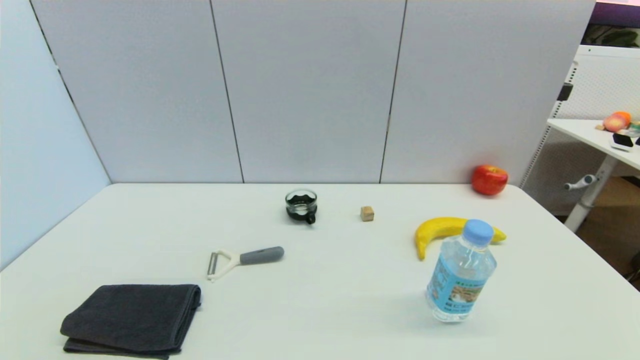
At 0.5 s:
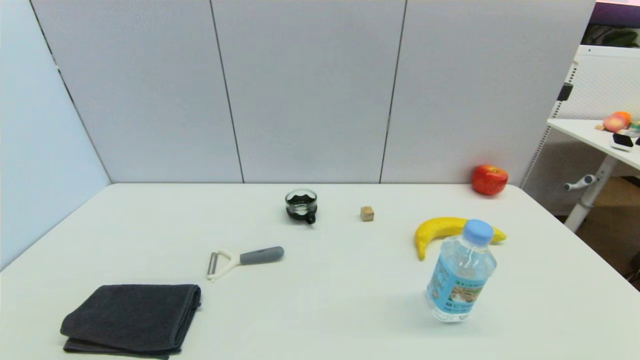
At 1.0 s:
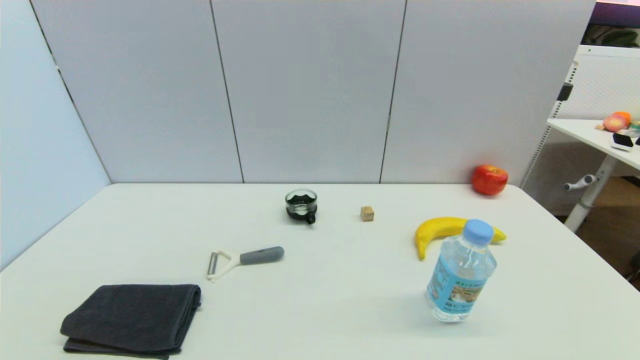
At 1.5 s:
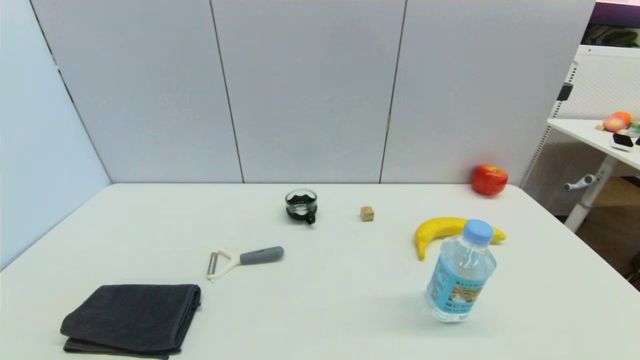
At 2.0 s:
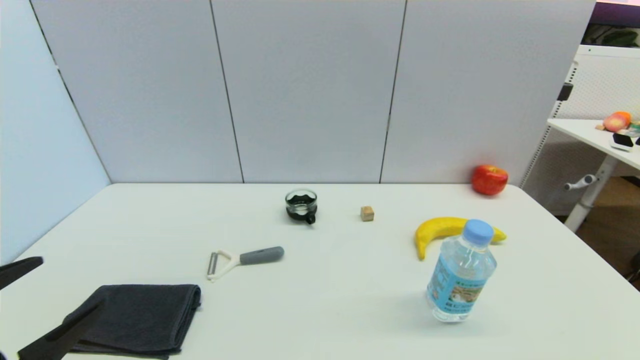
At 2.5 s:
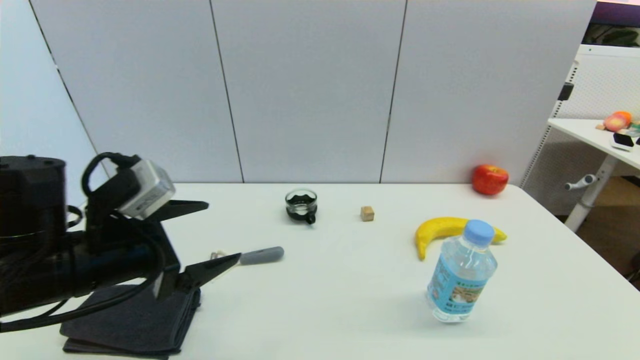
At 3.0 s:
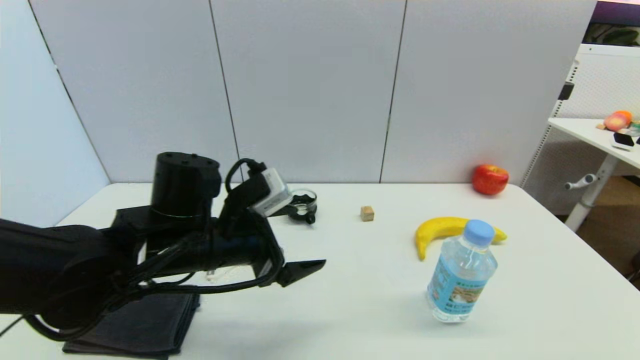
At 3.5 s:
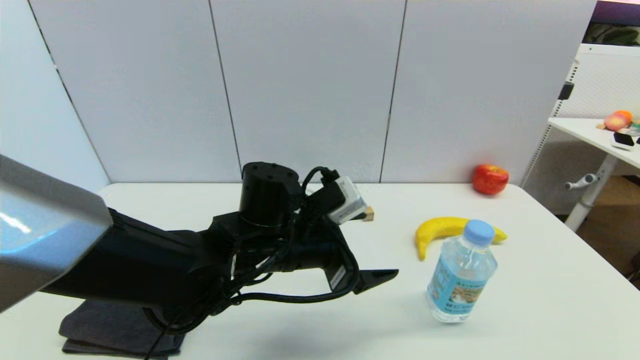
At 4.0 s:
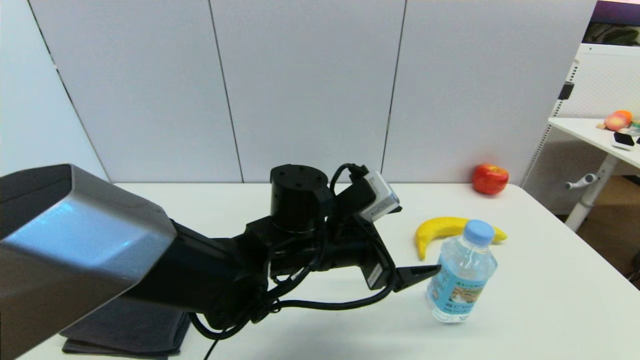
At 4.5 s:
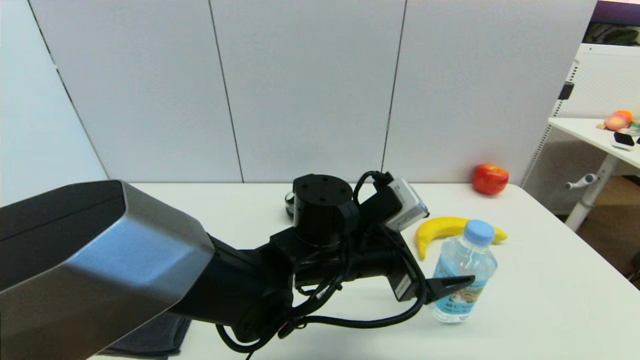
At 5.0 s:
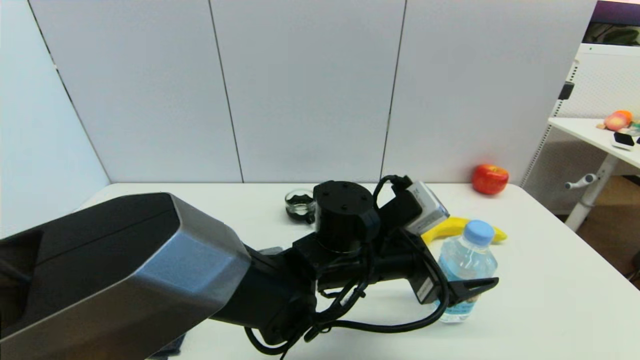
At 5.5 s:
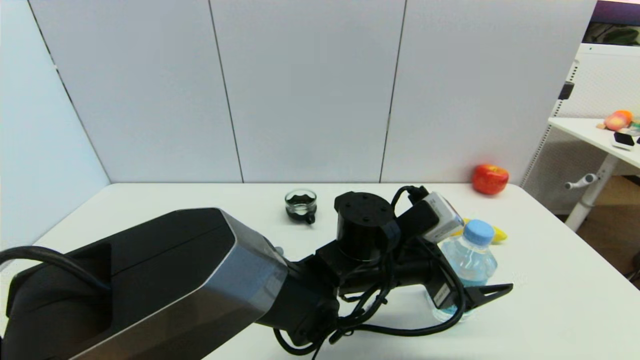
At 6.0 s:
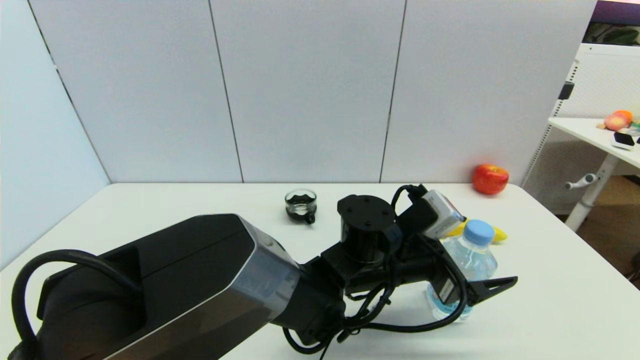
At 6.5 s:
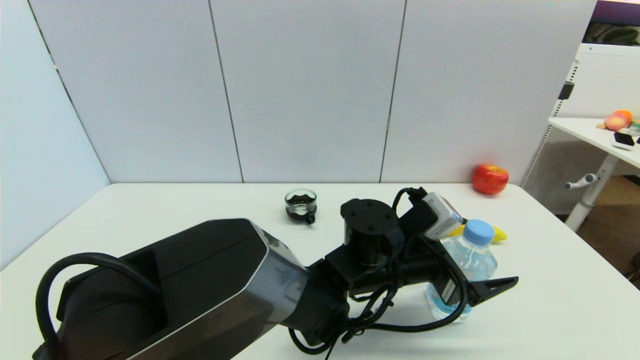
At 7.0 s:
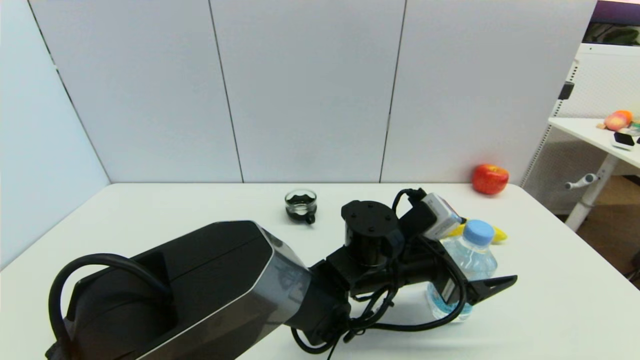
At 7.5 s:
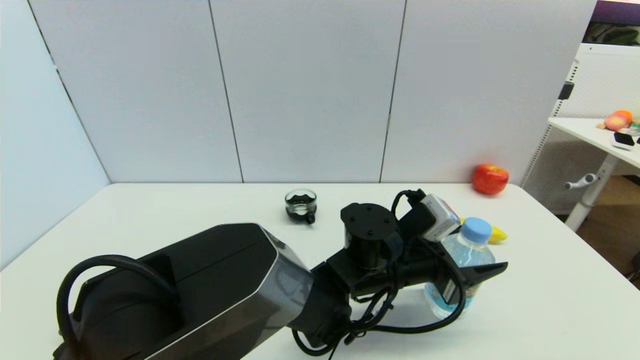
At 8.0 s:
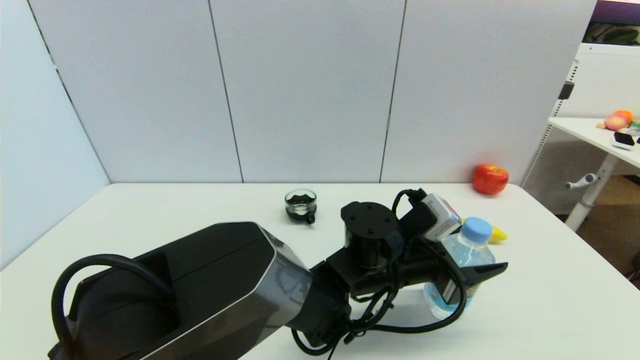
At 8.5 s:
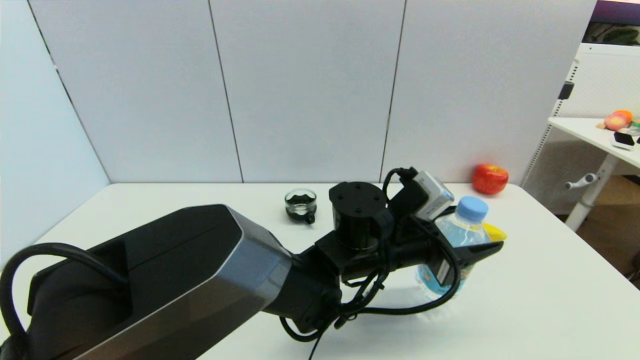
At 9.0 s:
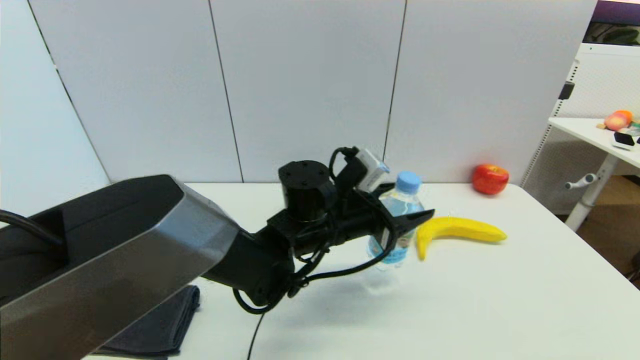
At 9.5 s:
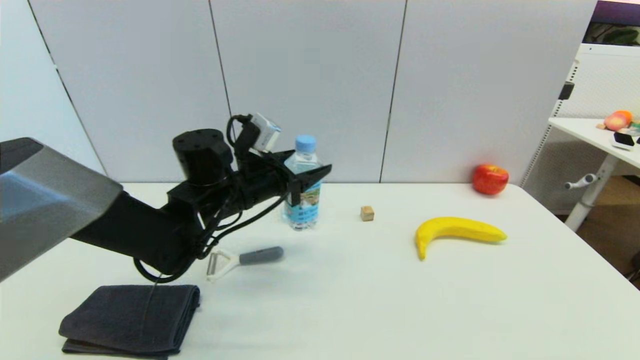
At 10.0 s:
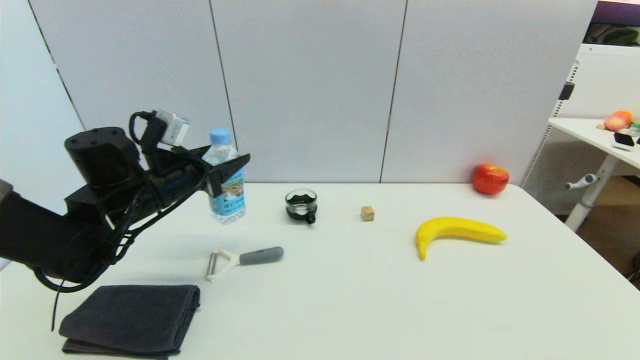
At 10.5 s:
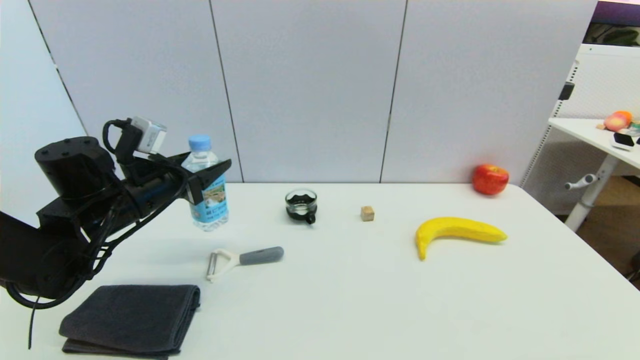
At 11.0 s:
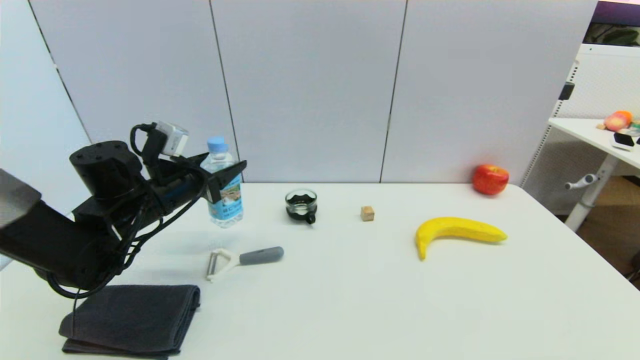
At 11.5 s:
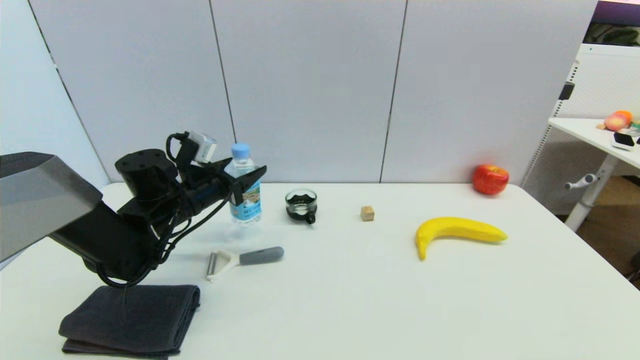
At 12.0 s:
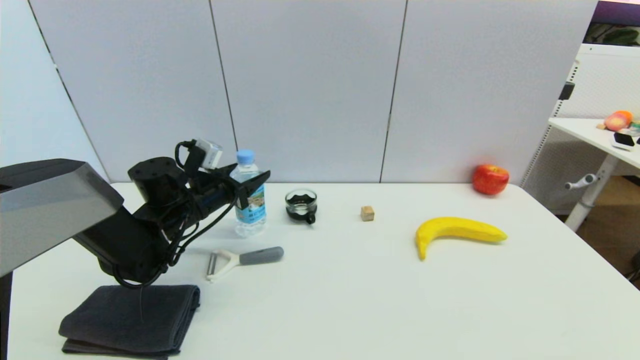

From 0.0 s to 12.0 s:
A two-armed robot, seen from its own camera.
Step, from 2.0 s to 7.5 s: Grasp the soda water with left gripper.
From 0.0 s to 2.0 s: The left gripper shifts some 15 cm upward and forward.
From 2.0 s to 4.0 s: The left gripper shifts approximately 35 cm to the right and forward.
From 4.0 s to 6.0 s: The left gripper heads to the right, covering about 10 cm.
From 6.0 s to 8.0 s: The left gripper closes up.
From 8.0 s to 10.0 s: The left gripper goes roughly 30 cm to the left.
From 10.0 s to 12.0 s: The left gripper heads downward and forward, covering about 10 cm.

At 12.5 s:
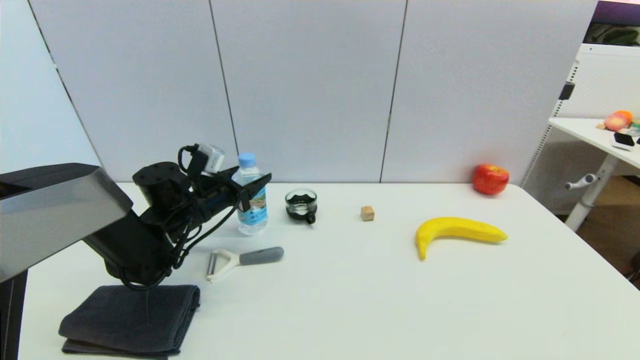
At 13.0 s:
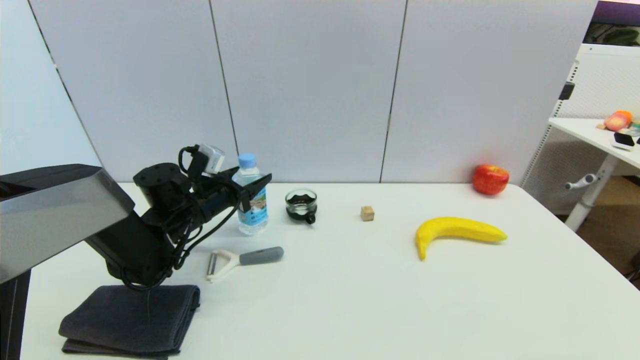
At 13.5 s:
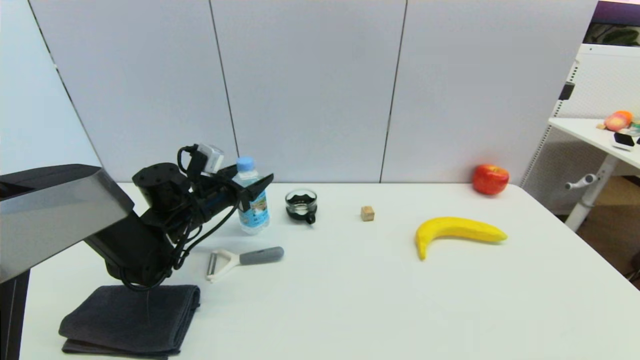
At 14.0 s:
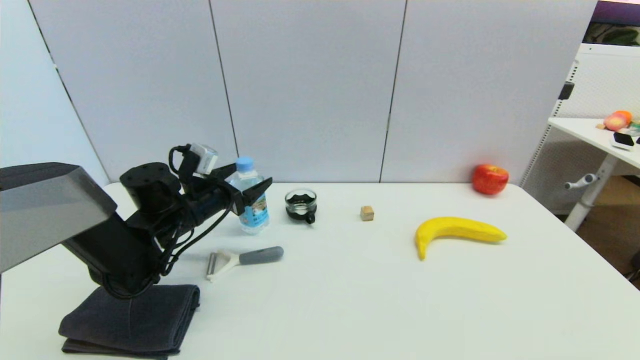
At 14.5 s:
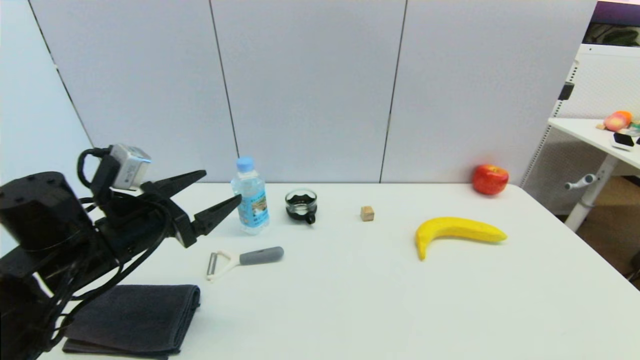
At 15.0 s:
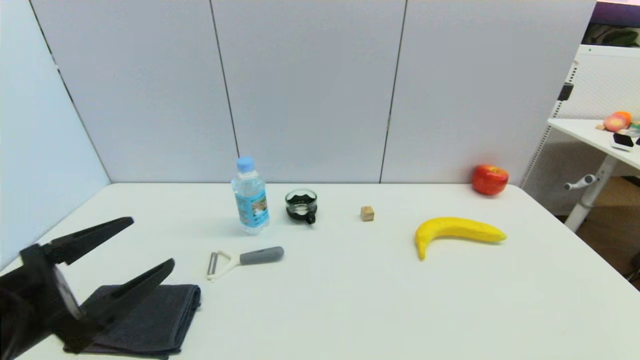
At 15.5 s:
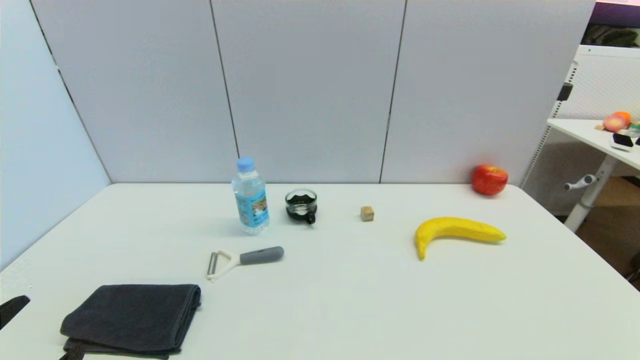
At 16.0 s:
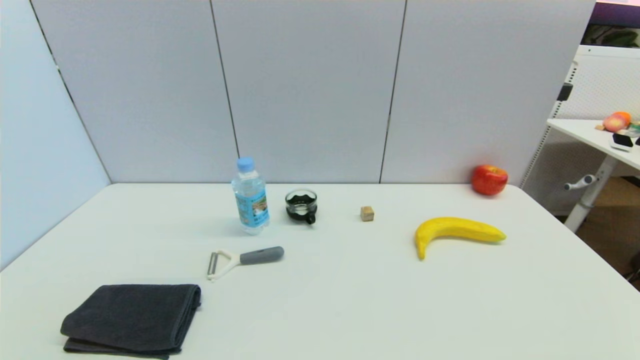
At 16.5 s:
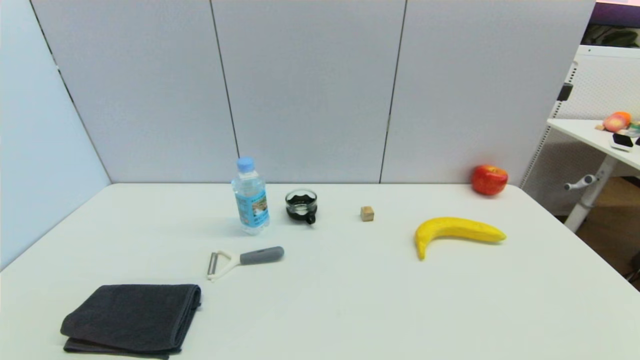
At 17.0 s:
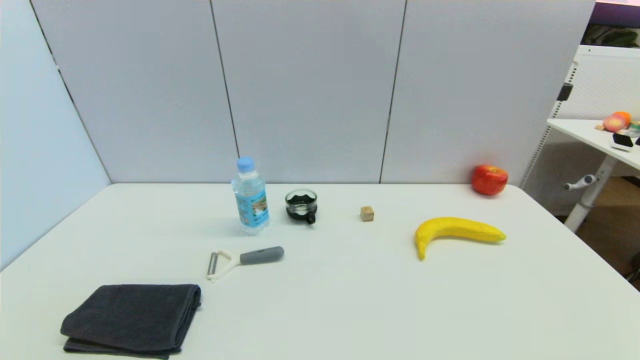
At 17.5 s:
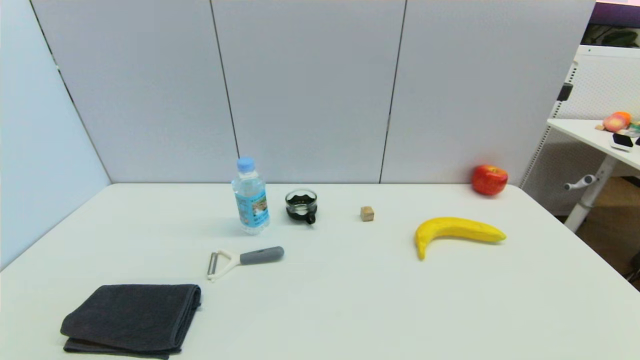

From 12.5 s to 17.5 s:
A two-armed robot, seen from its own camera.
From 12.5 s to 15.0 s: The left gripper travels backward by roughly 25 cm, and opens its fingers.
From 15.0 s to 17.5 s: The left gripper moves backward and downward, about 15 cm.
